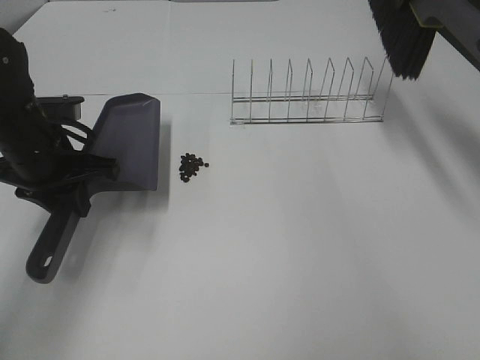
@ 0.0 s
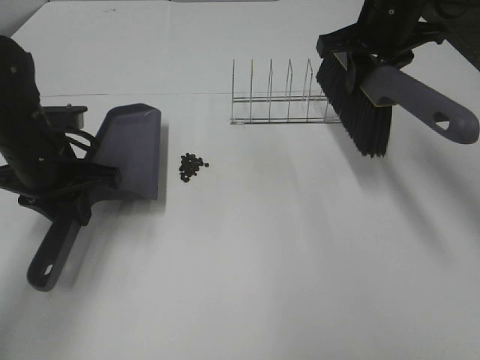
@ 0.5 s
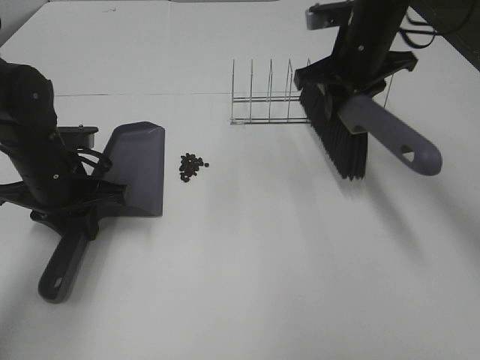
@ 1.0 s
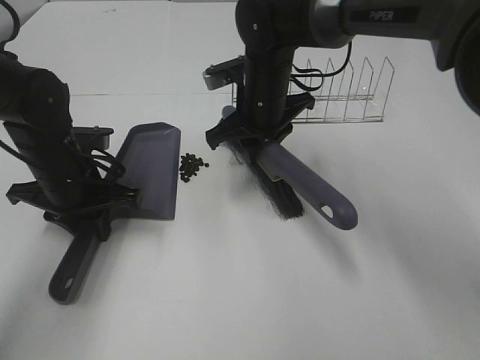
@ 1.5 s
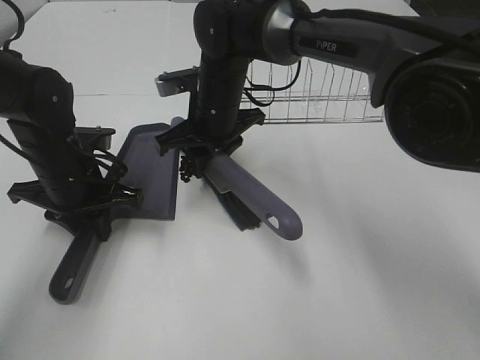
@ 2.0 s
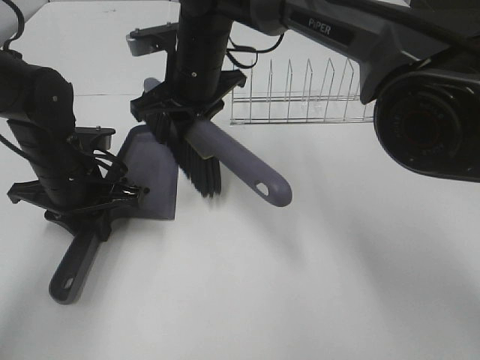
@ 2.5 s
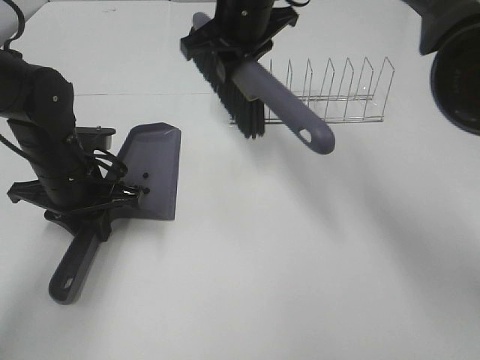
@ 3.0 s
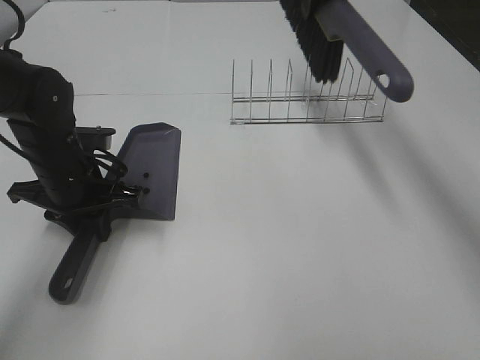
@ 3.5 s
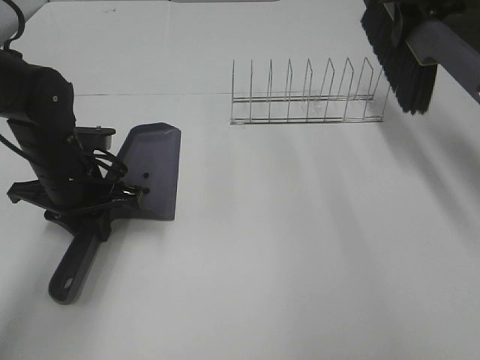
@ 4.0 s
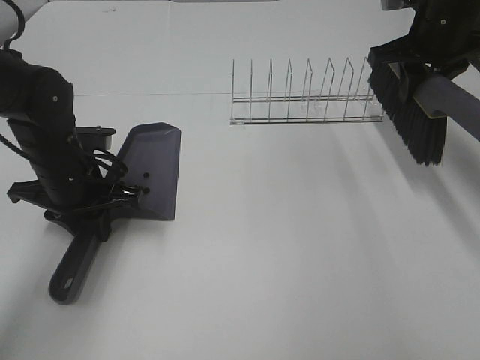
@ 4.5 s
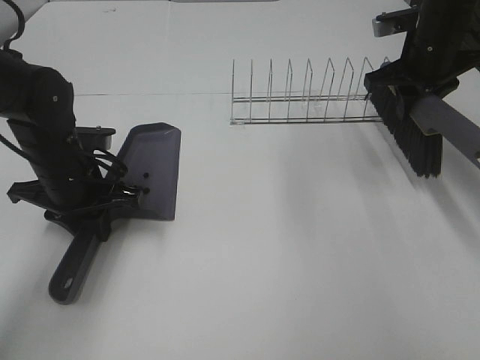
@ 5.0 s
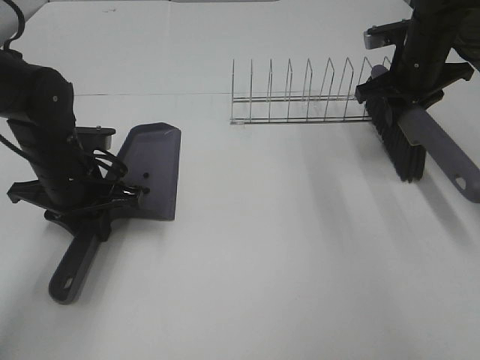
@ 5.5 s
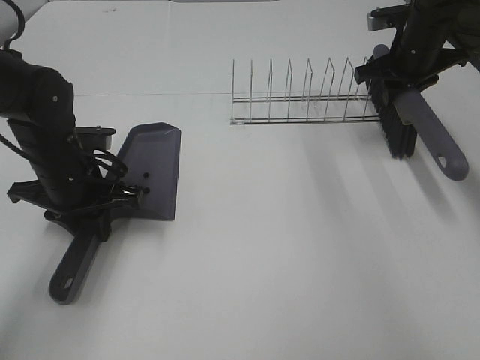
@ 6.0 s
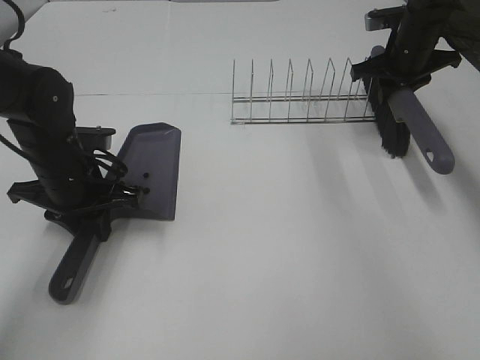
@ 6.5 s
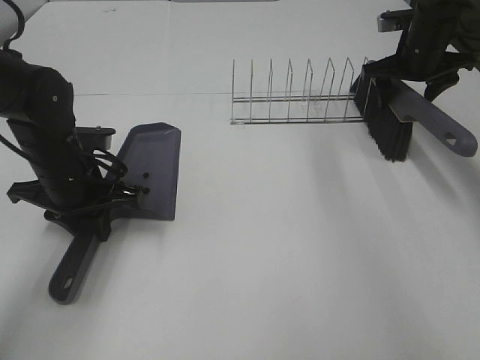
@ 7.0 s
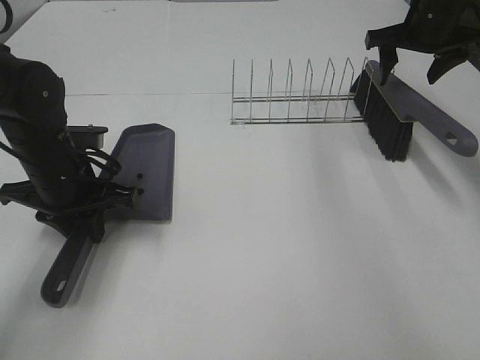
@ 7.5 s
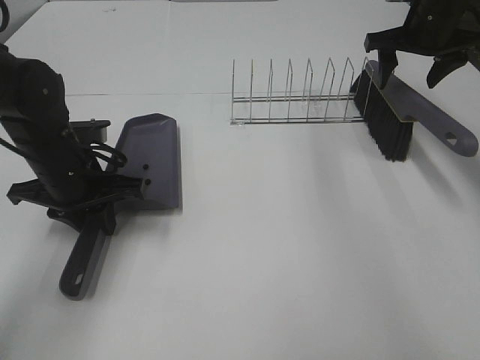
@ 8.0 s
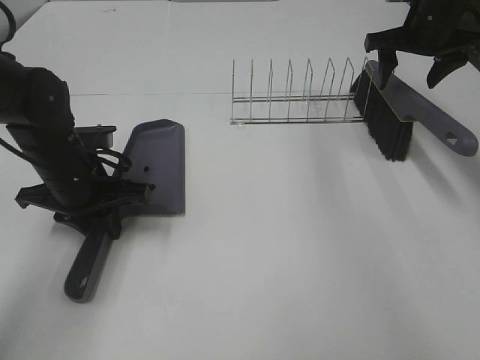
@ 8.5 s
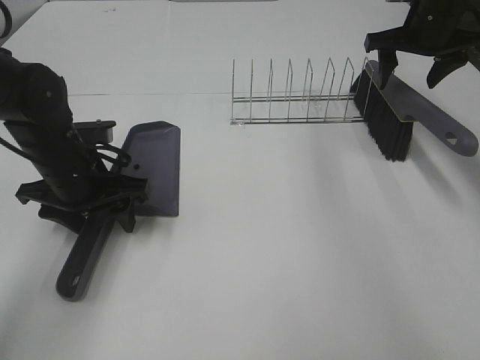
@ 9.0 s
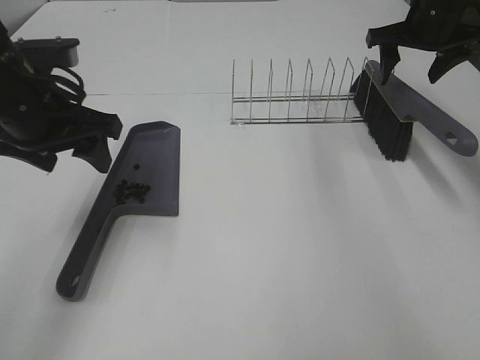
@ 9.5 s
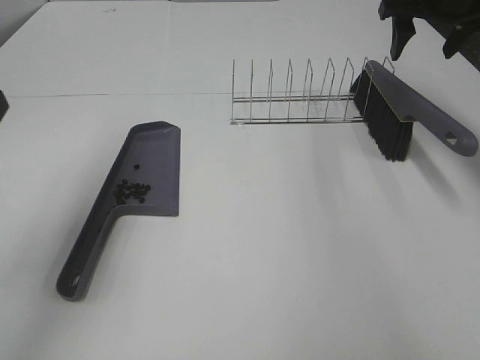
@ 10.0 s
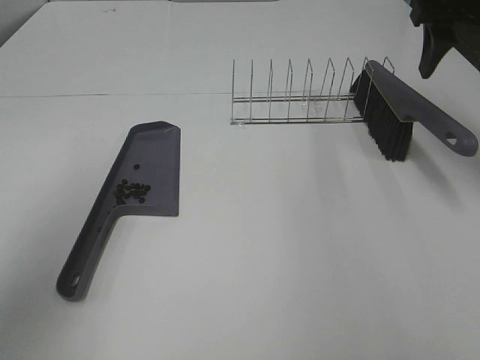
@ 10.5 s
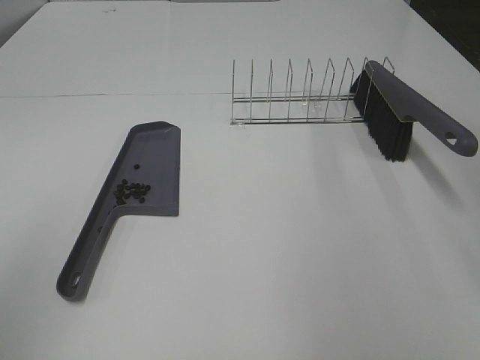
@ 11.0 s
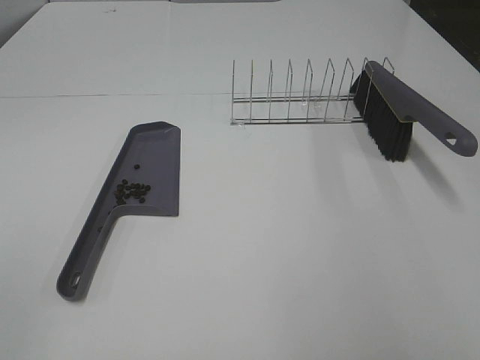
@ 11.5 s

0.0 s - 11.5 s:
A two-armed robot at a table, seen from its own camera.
Task of the whole recording: Sweep Coffee Bean.
Step, 0.0 s - 2.5 s: Right hand:sweep the coffee beans into the dustpan.
Step, 3.0 s - 7.0 s: Right hand:place the broom on the rack.
Step, 7.5 s - 9.0 s: Left hand:place the dustpan on the table.
0.0 s - 2.0 s: The right gripper travels to the left and downward by some 35 cm. The left gripper shifts approximately 5 cm downward.
2.0 s - 4.0 s: The right gripper travels to the right and upward by about 30 cm.
4.0 s - 6.0 s: The right gripper shifts roughly 15 cm downward and forward.
6.0 s - 7.5 s: The right gripper opens.
7.5 s - 9.5 s: The left gripper goes roughly 10 cm upward, and opens.
9.5 s - 11.5 s: The right gripper goes about 40 cm backward. The left gripper heads backward and to the left, covering roughly 35 cm.

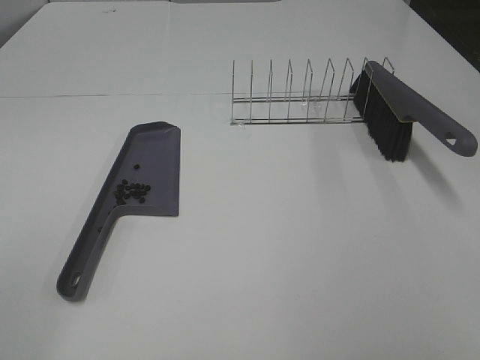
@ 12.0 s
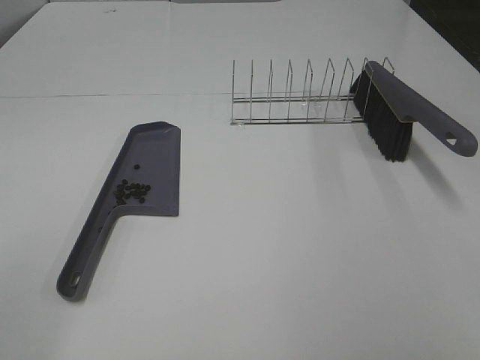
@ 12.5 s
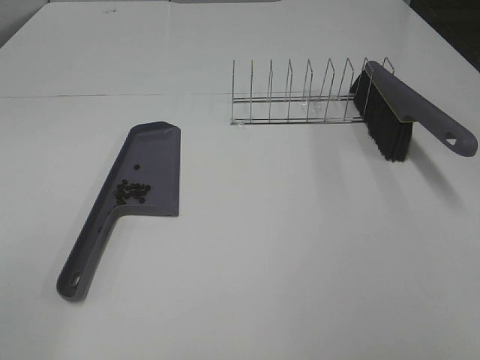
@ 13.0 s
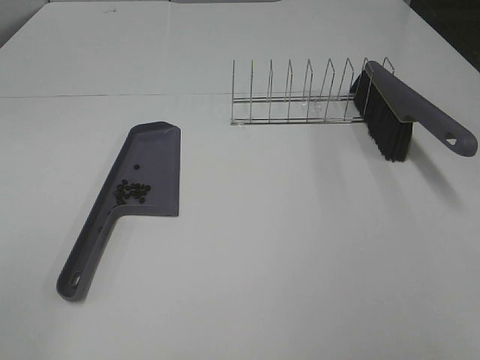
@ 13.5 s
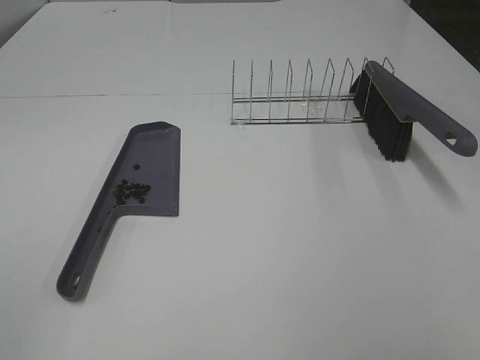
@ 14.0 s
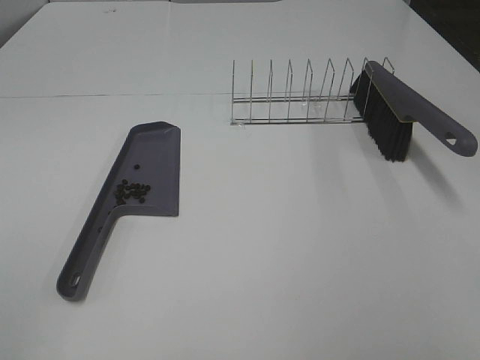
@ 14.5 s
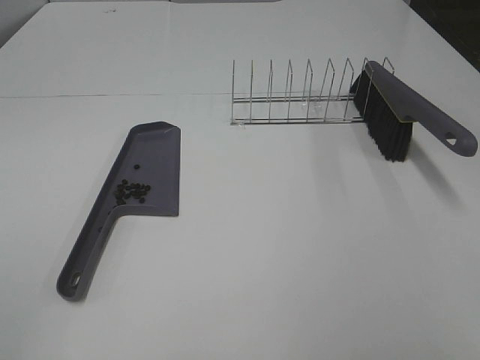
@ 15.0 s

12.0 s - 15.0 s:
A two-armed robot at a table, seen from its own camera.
Task of the whole recording: Sweep Coffee Bean.
12.0 s - 13.5 s: The two grippers keep their place.

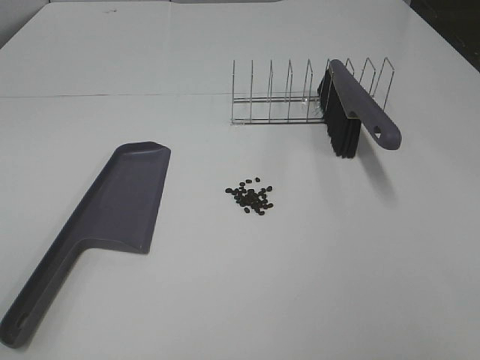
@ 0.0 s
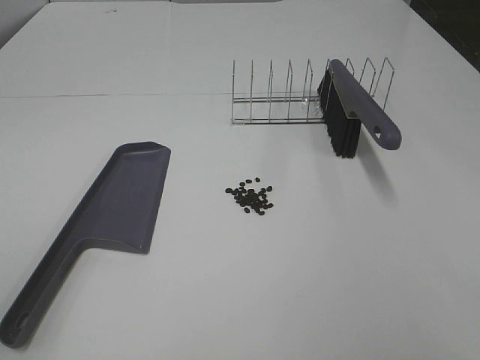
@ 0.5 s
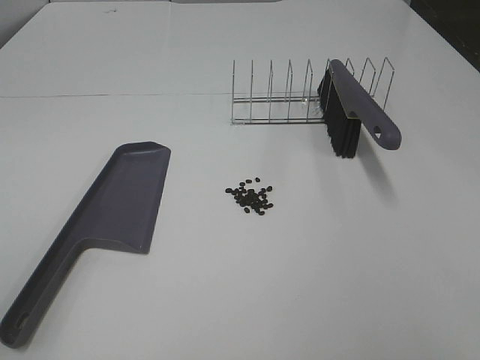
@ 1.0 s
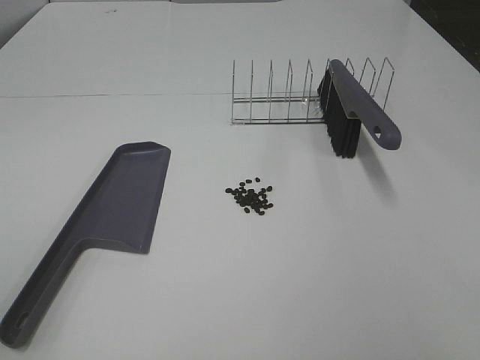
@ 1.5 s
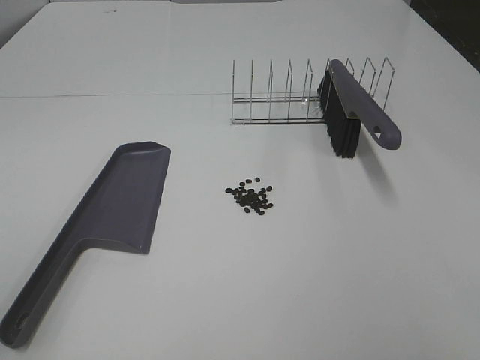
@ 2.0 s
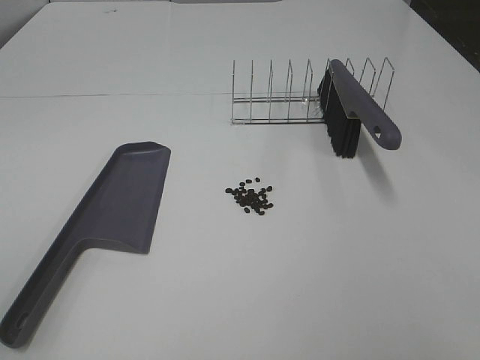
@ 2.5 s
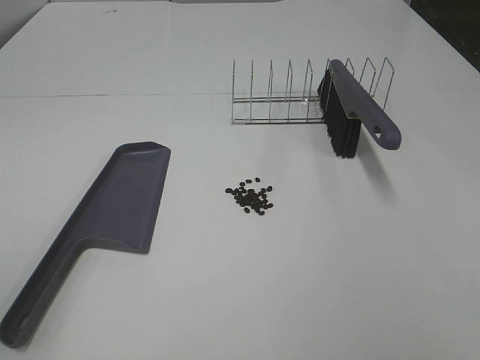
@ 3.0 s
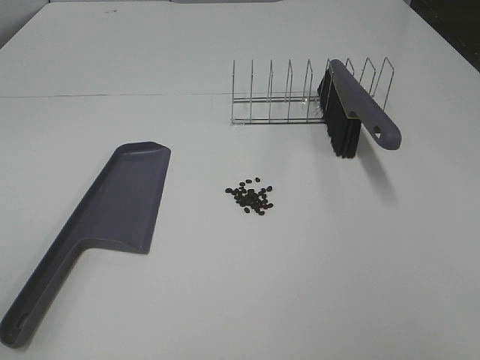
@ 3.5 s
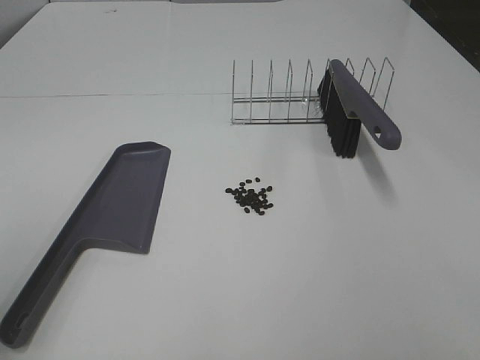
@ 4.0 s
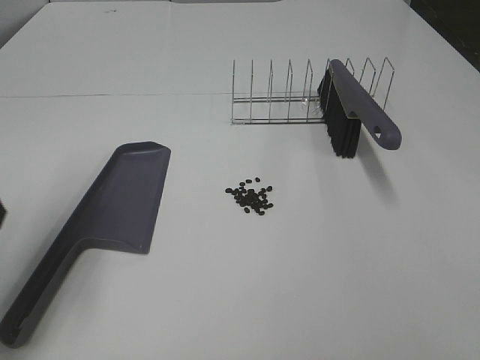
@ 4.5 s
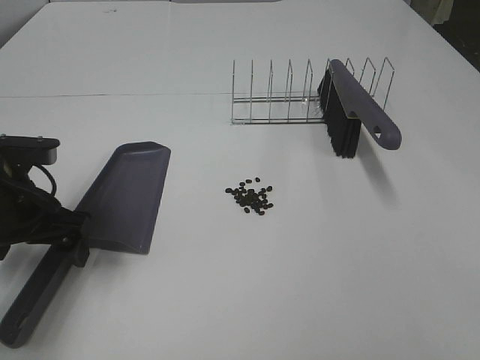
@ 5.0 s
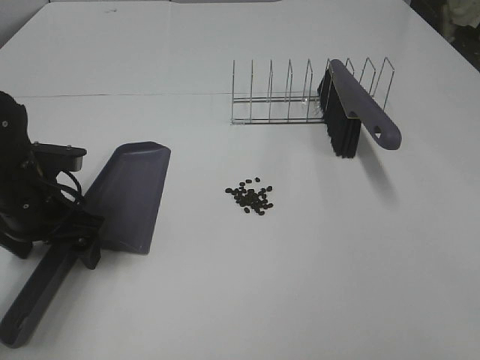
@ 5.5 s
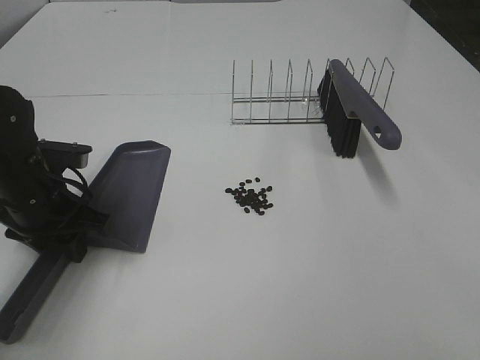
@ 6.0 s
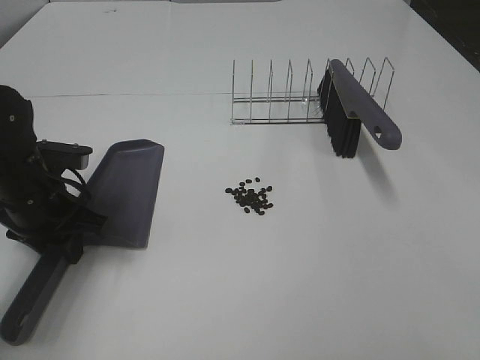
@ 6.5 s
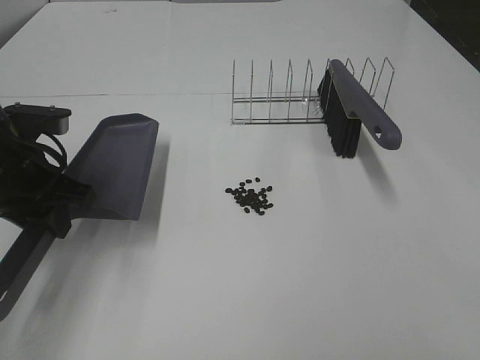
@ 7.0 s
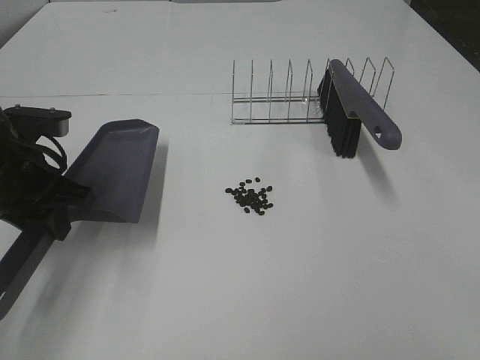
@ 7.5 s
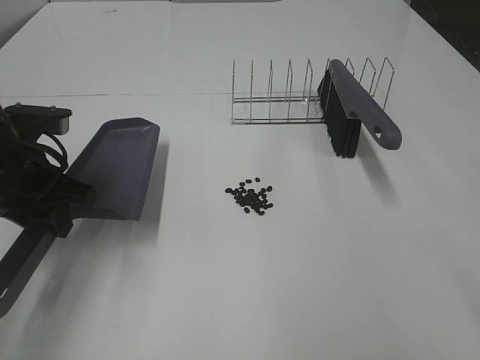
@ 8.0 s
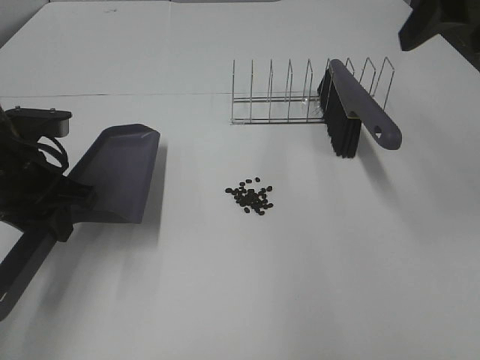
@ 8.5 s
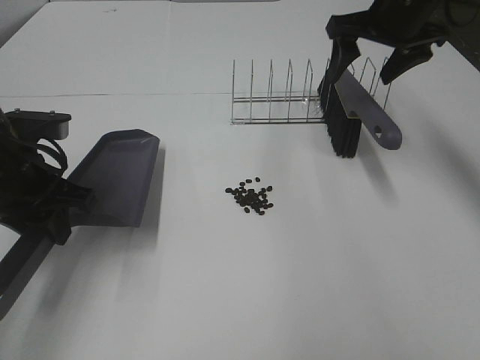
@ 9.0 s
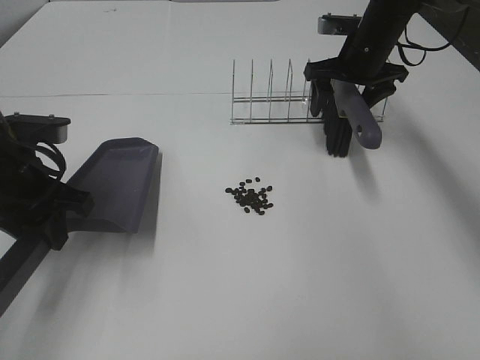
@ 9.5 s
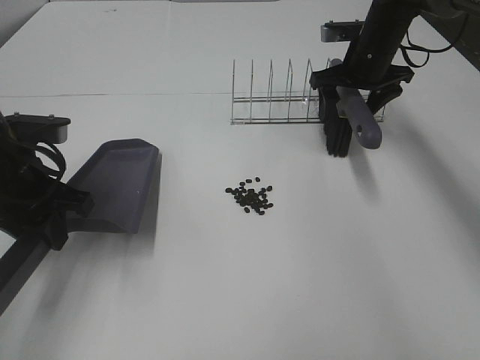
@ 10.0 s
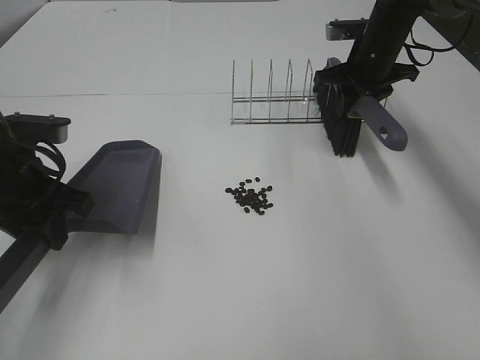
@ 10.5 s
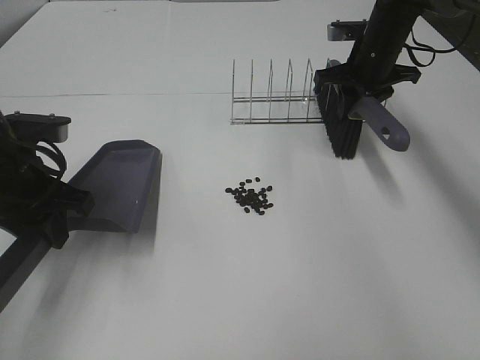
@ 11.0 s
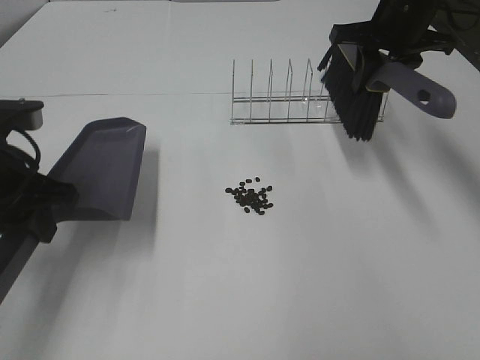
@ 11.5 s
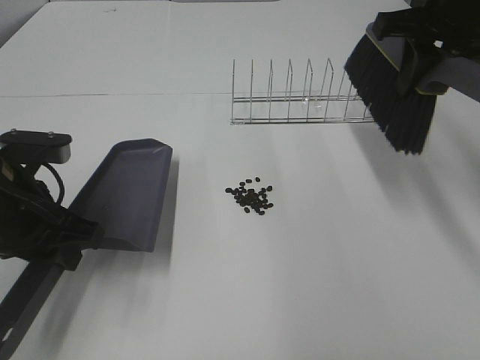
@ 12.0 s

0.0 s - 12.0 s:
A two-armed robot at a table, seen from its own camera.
Task of the whole recording: Sweep Coffee Bean.
Step, 0.0 s - 6.0 s: Left hand: grab the dustpan.
Step, 8.0 s - 10.0 s: Right hand:grab the broom.
0.0 s - 2.0 s: Both grippers stay put.
4.0 s - 6.0 s: The left gripper is displaced forward, downward and to the right by some 30 cm, and closes up.
6.0 s - 8.0 s: The left gripper travels upward by some 5 cm.
8.0 s - 10.0 s: The right gripper heads forward and downward, covering about 50 cm.
10.0 s - 12.0 s: The right gripper moves backward and upward, some 20 cm, and closes up.
